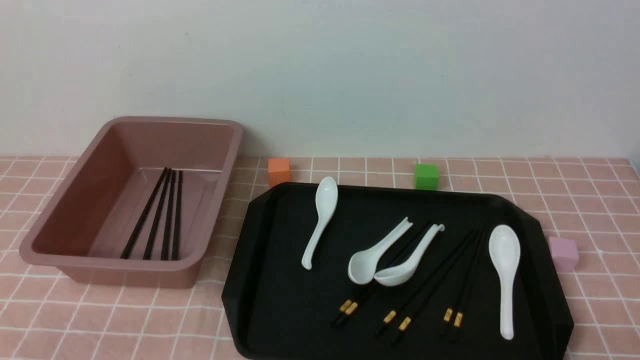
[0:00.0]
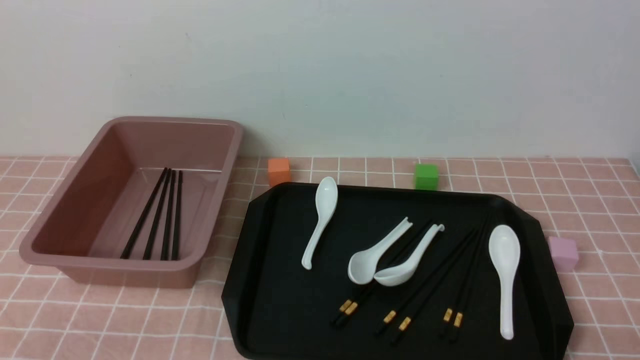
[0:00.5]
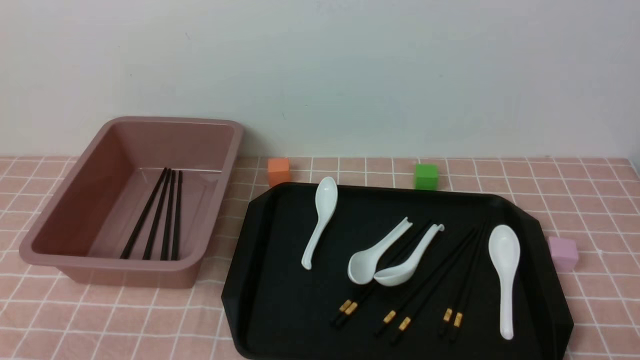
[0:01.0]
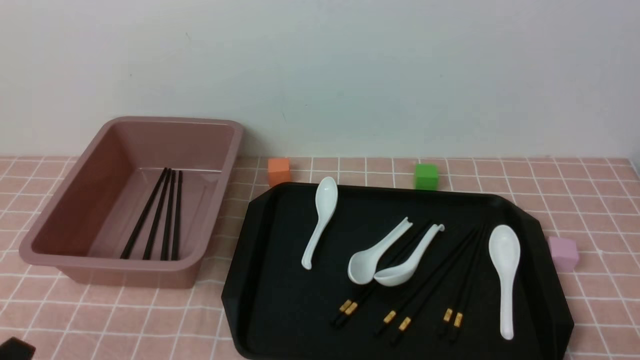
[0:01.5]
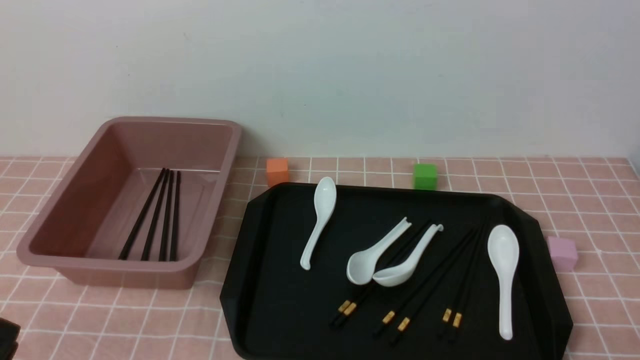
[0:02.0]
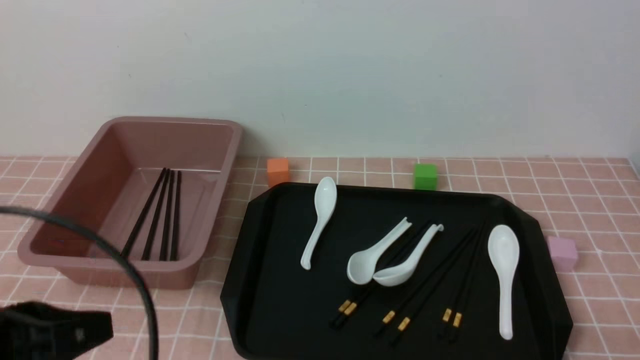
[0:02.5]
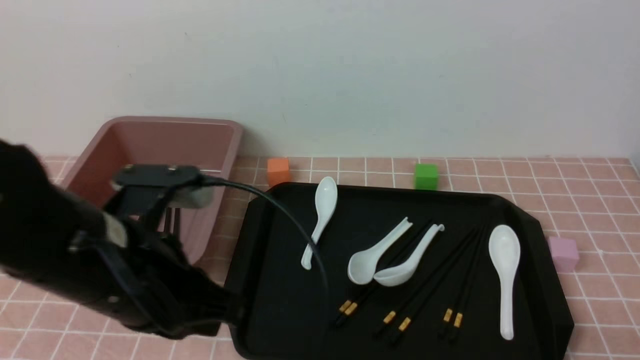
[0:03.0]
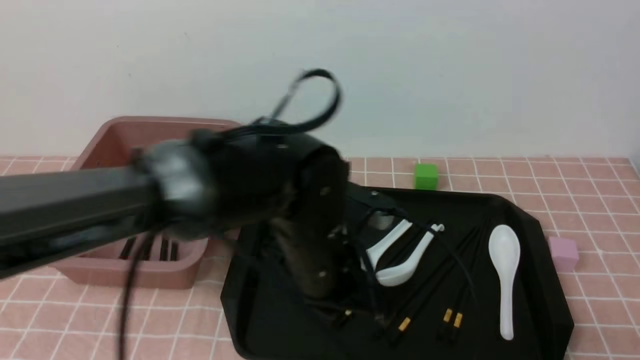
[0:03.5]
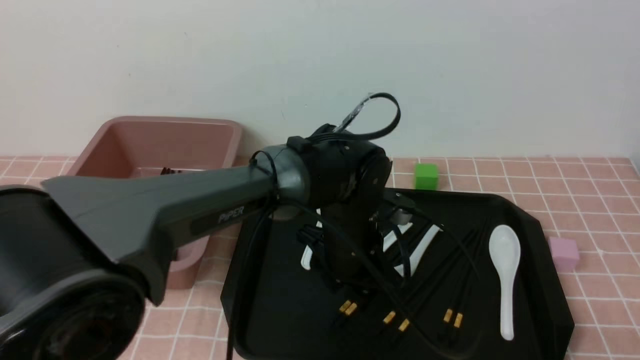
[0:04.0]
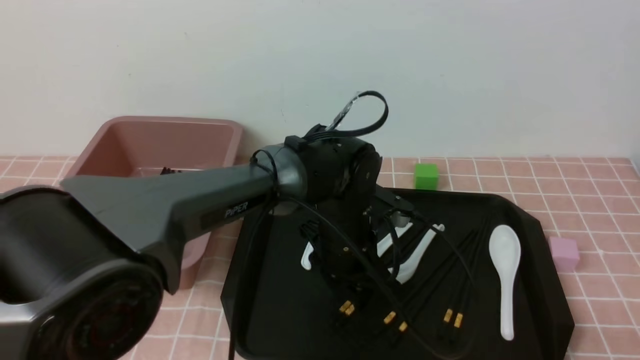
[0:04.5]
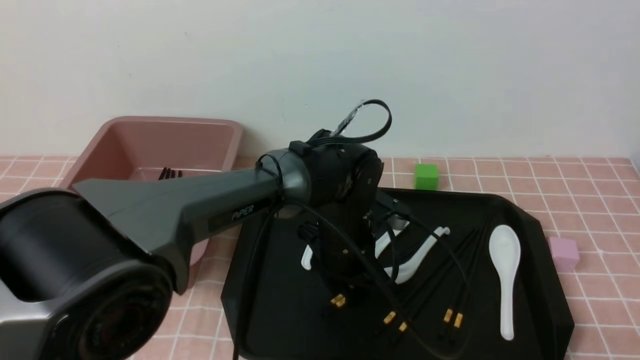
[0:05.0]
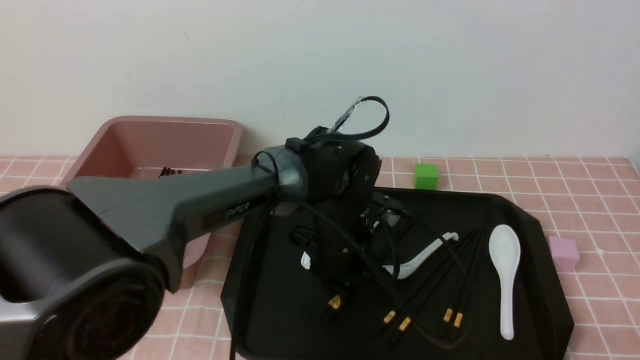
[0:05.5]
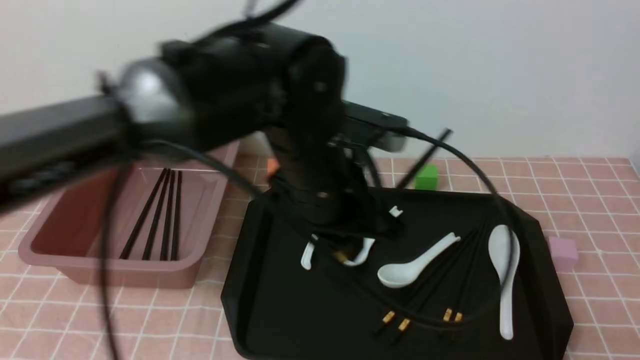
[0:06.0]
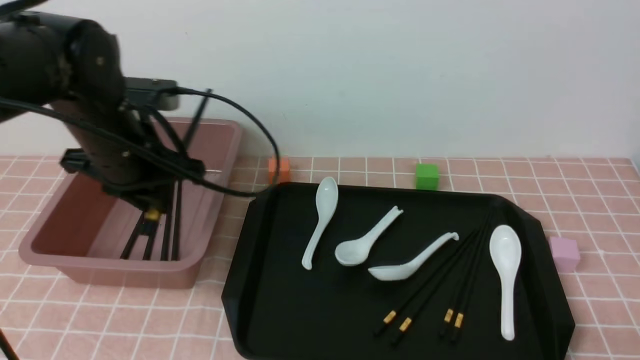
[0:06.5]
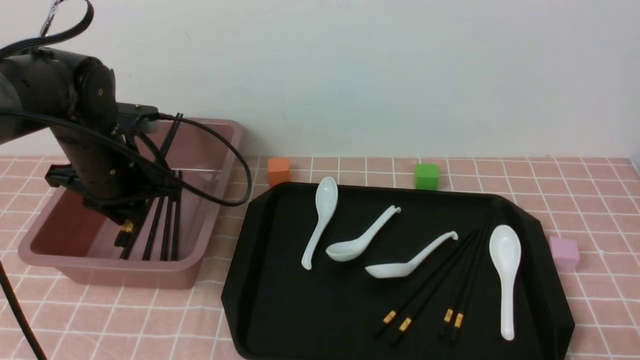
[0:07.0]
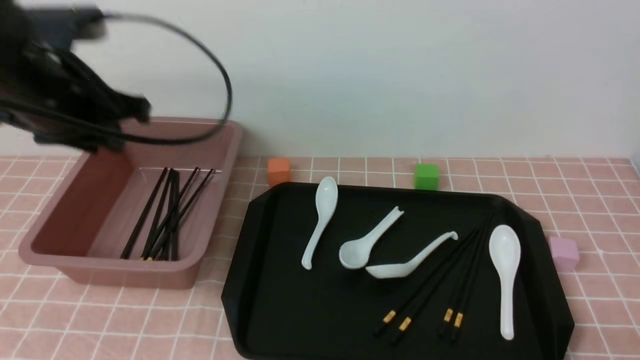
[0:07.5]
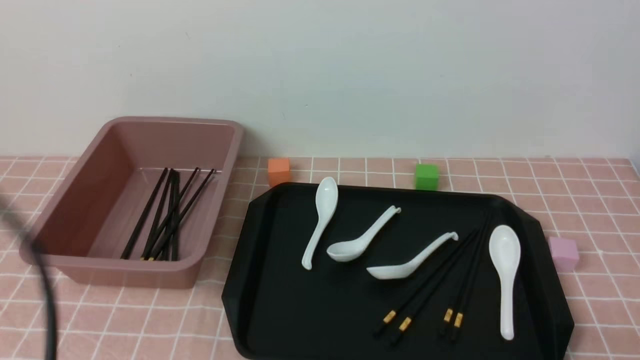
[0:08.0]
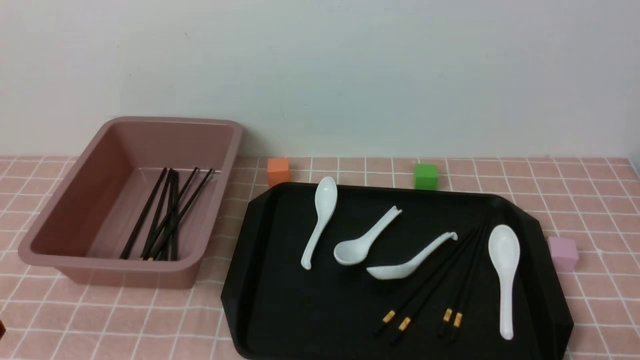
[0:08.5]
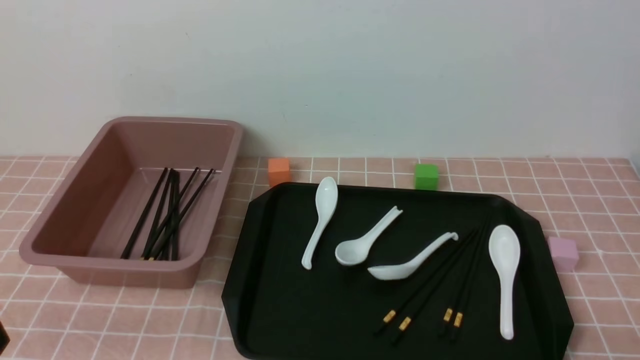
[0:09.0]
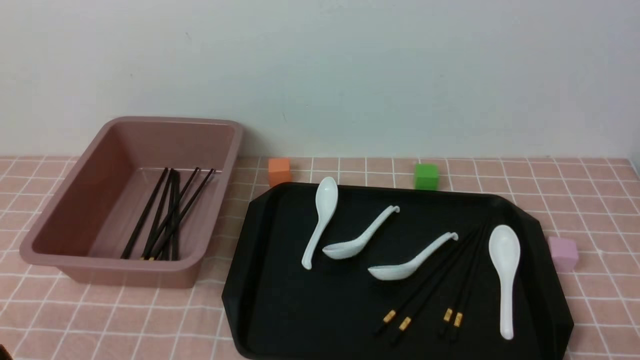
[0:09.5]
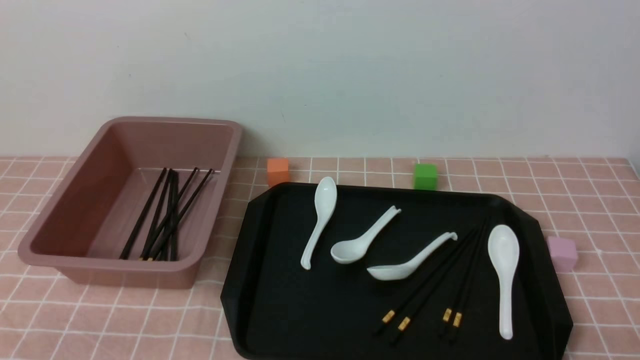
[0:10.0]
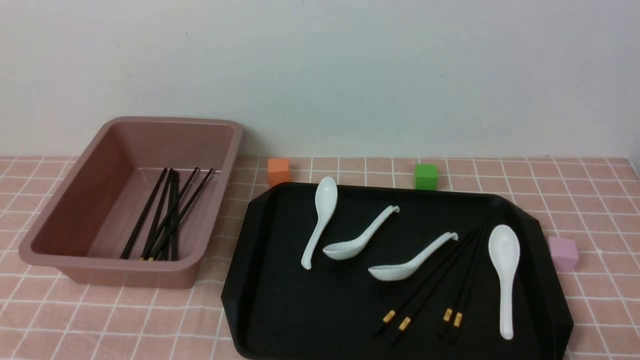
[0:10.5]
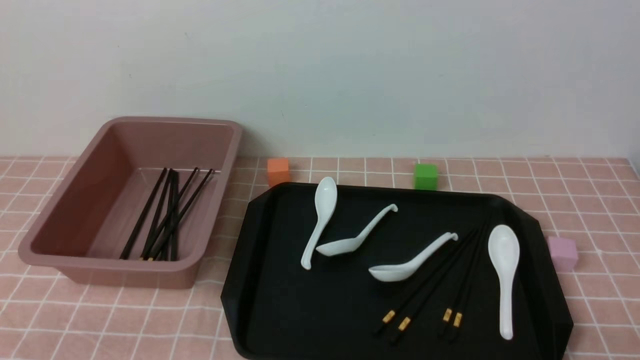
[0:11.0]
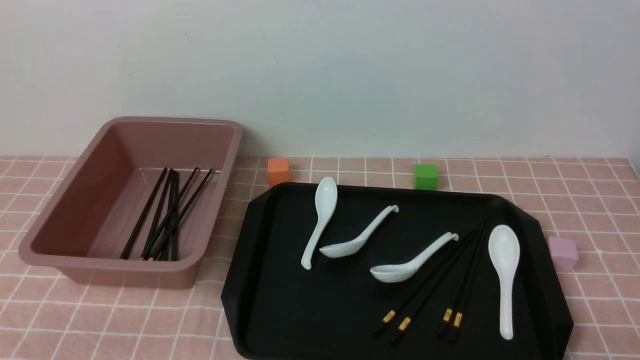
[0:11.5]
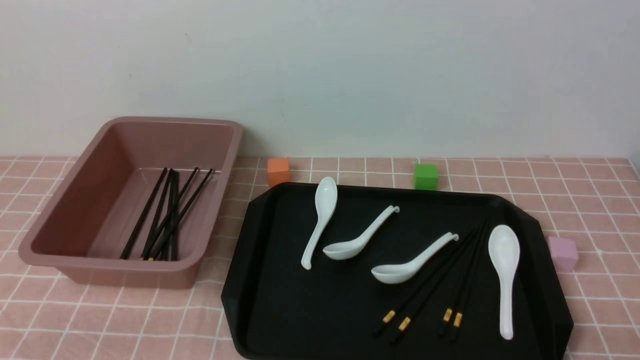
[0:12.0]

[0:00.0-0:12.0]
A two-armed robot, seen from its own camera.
Step, 0:00.0 to 0:05.5: use the left arm to grab a pair of chopsticks.
Step, 0:06.0 to 0:07.5: use the left arm to put the chopsticks into the lunch box.
0:00.0 to 0:02.0: The left gripper goes about 5 cm upward.
0:02.0 to 0:04.0: The left gripper is displaced to the right and forward by about 40 cm, and opens.
0:04.0 to 0:06.0: The left gripper shifts approximately 15 cm upward and to the left, and closes.
0:06.0 to 0:08.0: The left gripper goes about 30 cm to the left and backward.
0:08.0 to 0:10.0: The left gripper heads downward, covering roughly 15 cm.
0:10.0 to 0:12.0: The two grippers keep their place.
